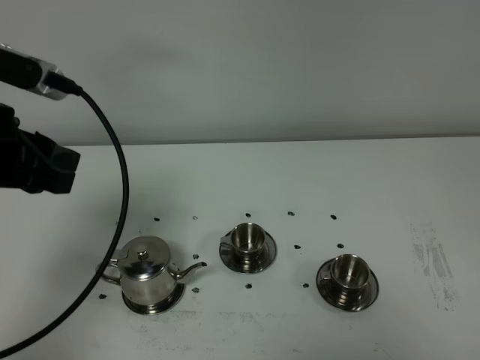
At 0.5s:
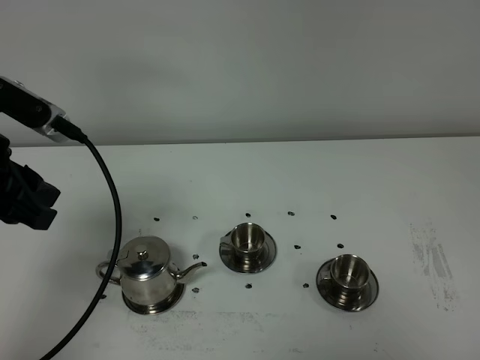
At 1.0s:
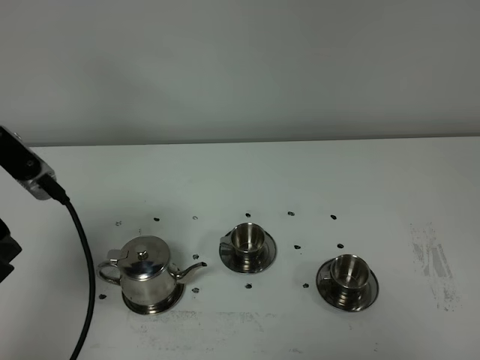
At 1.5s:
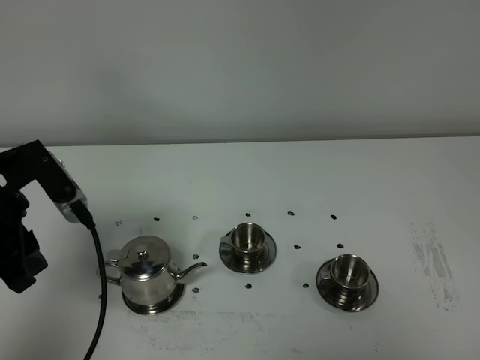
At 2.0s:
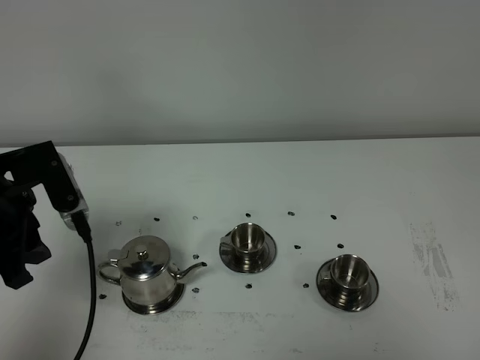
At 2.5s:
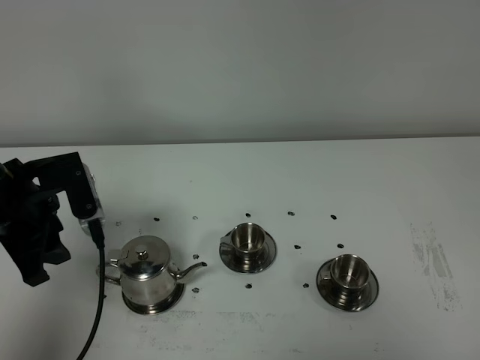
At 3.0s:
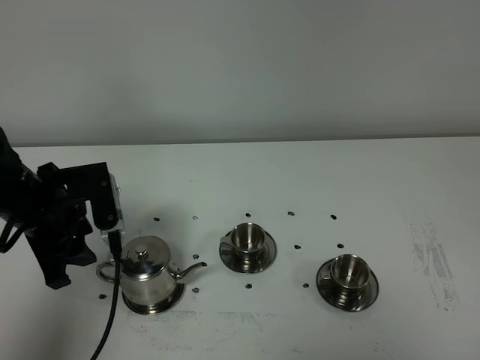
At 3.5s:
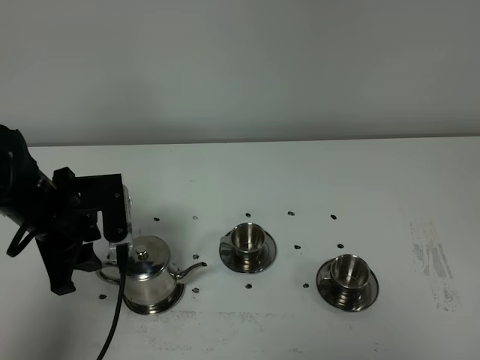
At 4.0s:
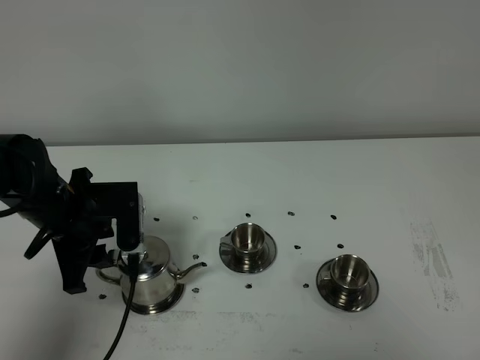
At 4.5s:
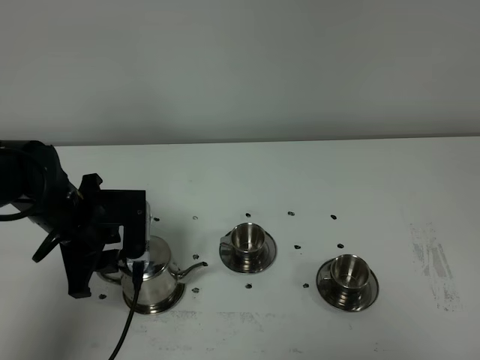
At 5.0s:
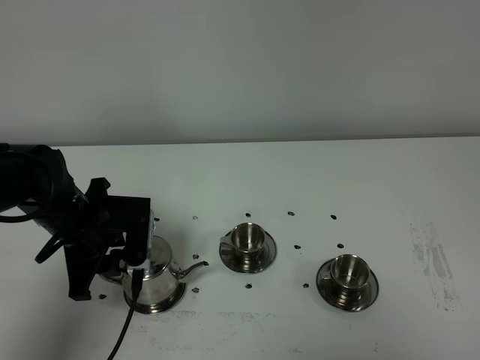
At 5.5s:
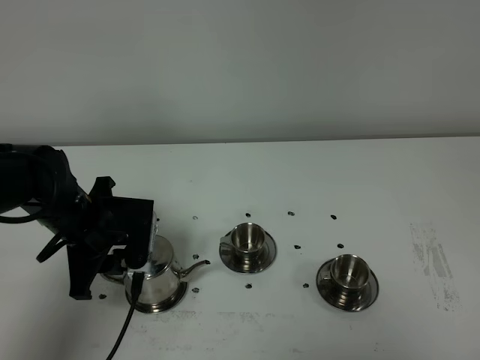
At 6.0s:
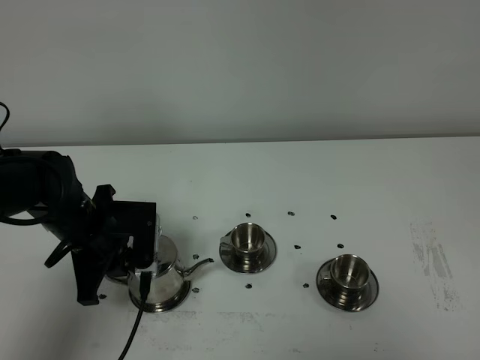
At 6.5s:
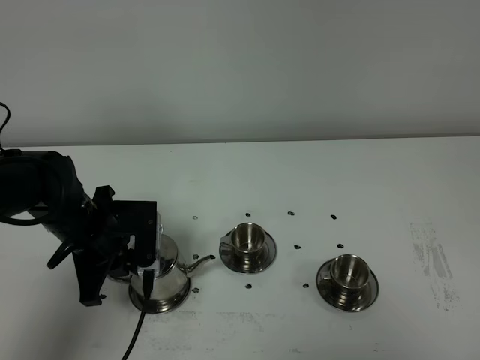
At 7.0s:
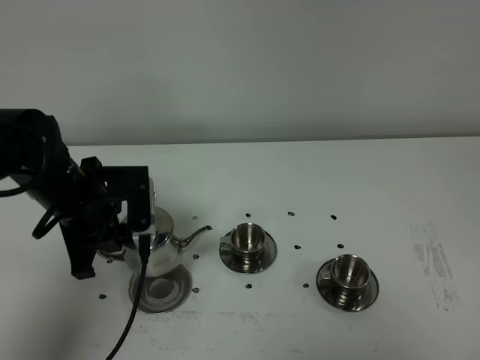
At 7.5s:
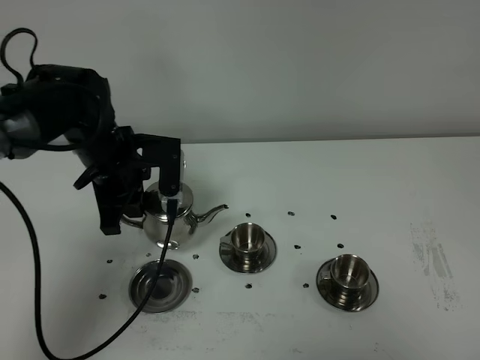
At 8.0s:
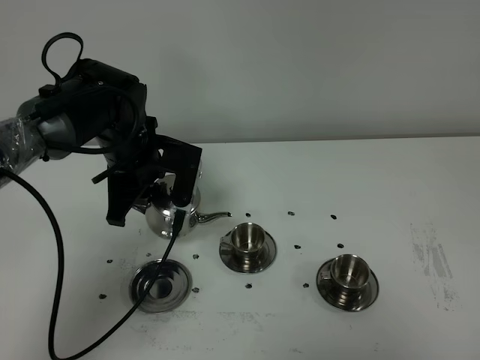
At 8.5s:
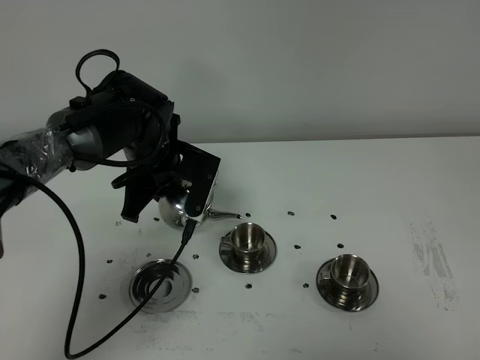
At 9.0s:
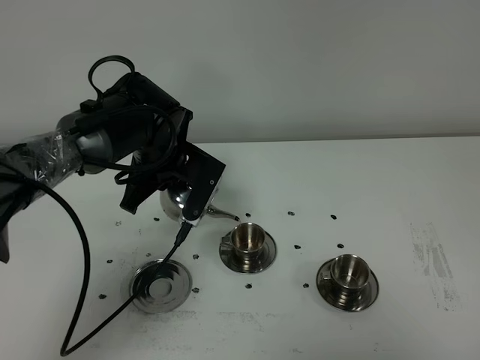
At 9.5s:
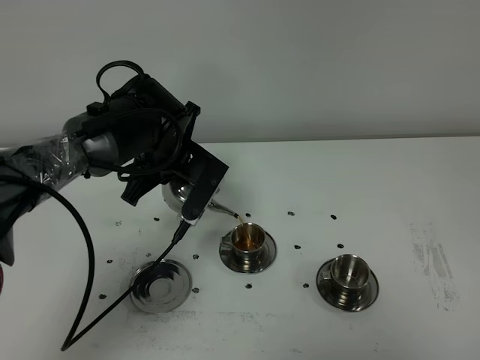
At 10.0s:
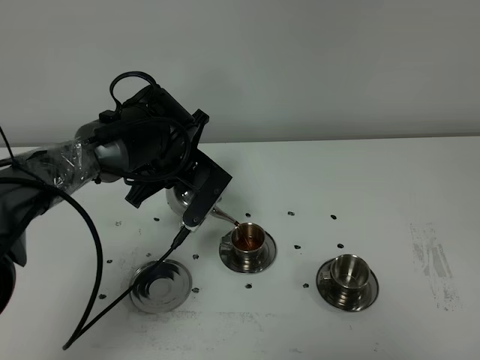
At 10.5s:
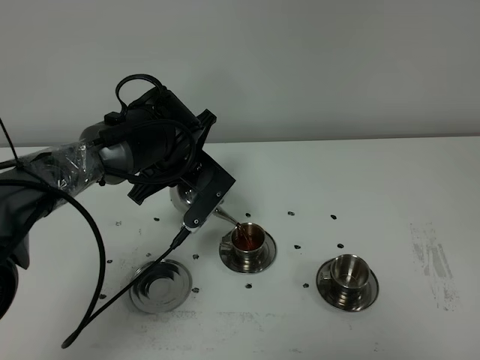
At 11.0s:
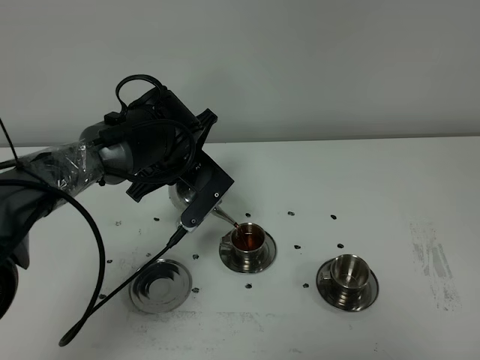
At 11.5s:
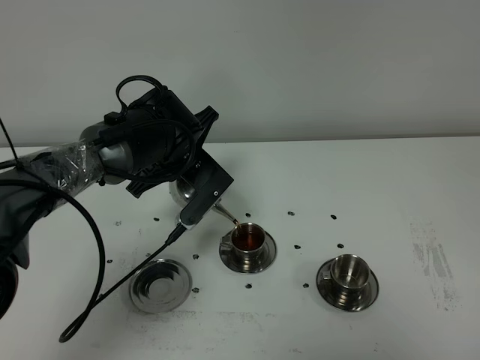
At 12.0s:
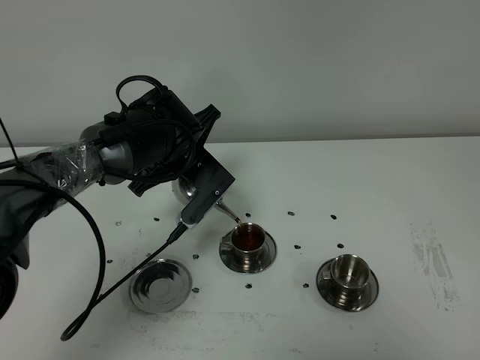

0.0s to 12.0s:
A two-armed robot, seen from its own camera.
Task of the whole recording: grasp the stainless steel teapot and pour the tea into the two stainless steel teacups one by one, put the stainless steel teapot back in its original place.
Step, 0.0s to 7.0s: Pick up the teapot with the left gripper.
0.0s to 2.0s: The left gripper moves downward, some 5 cm.
2.0s to 4.0s: The left gripper moves downward, roughly 10 cm.
4.0s to 6.0s: The left gripper closes up.
6.0s to 8.0s: The left gripper shifts roughly 10 cm forward, to the right and upward.
8.0s to 10.0s: The left gripper changes place by roughly 5 cm.
10.0s to 12.0s: The grippers make only small movements.

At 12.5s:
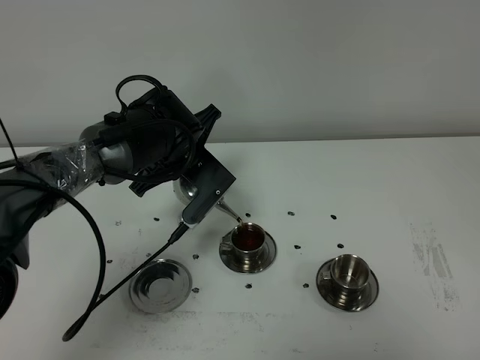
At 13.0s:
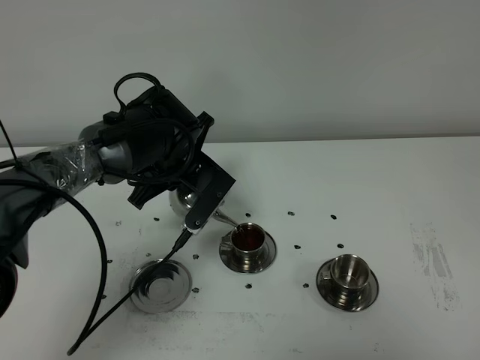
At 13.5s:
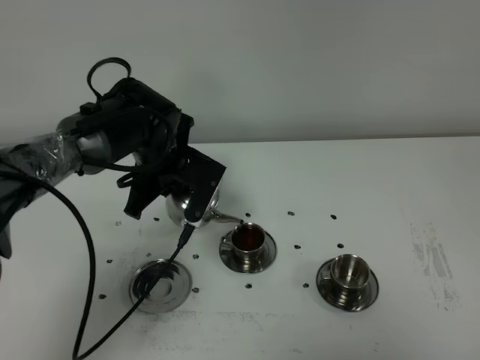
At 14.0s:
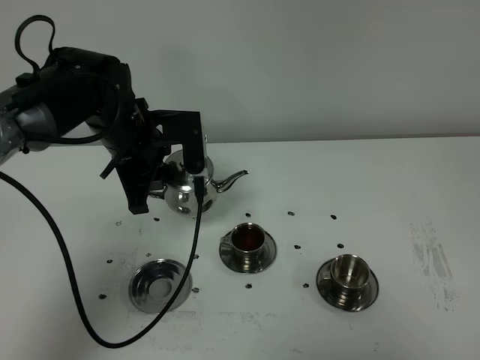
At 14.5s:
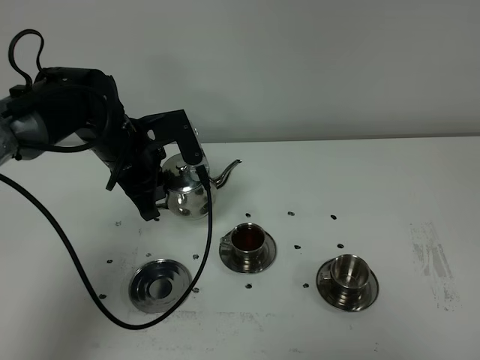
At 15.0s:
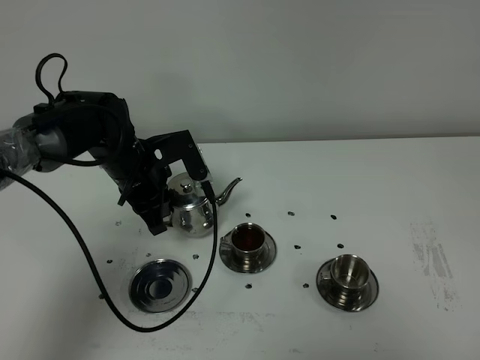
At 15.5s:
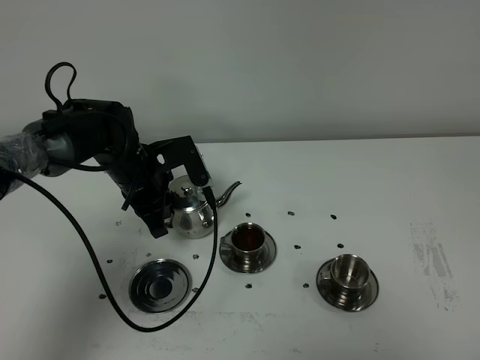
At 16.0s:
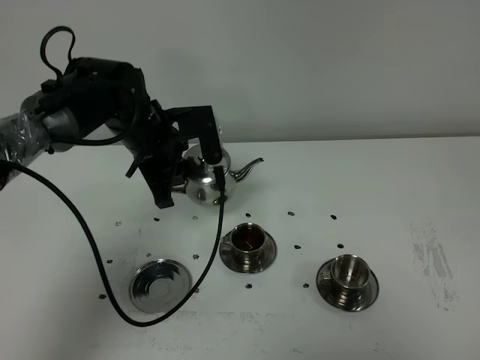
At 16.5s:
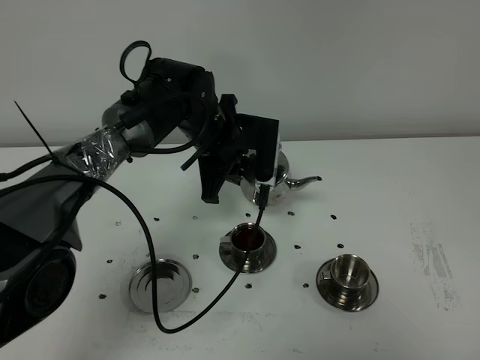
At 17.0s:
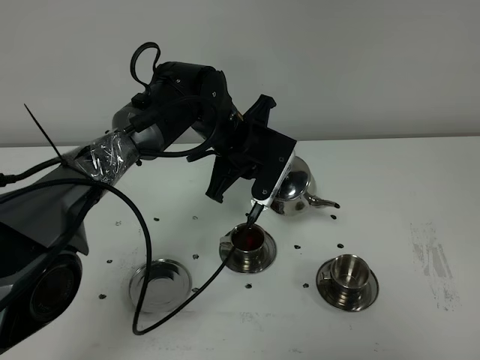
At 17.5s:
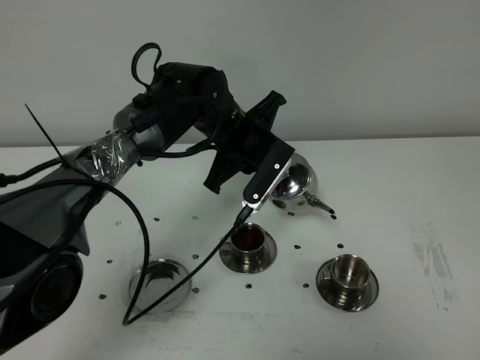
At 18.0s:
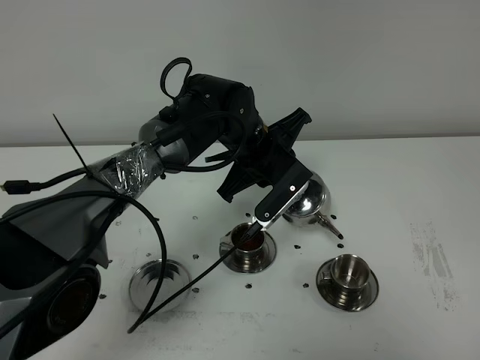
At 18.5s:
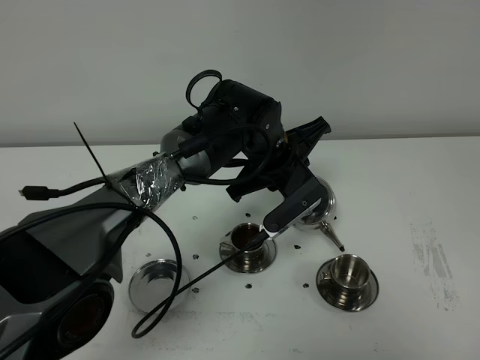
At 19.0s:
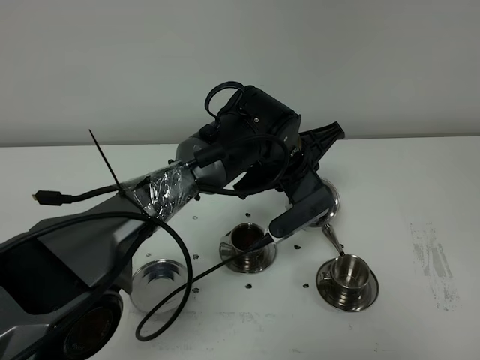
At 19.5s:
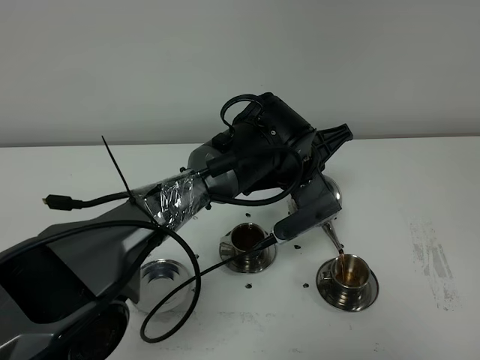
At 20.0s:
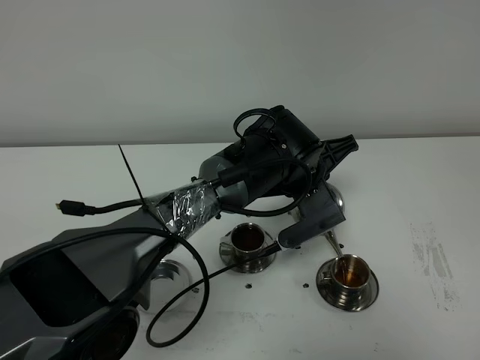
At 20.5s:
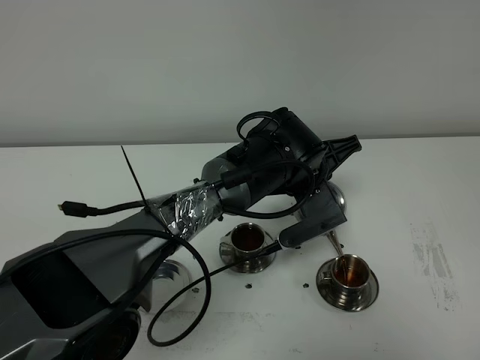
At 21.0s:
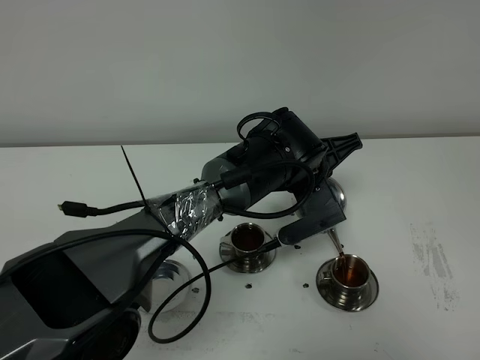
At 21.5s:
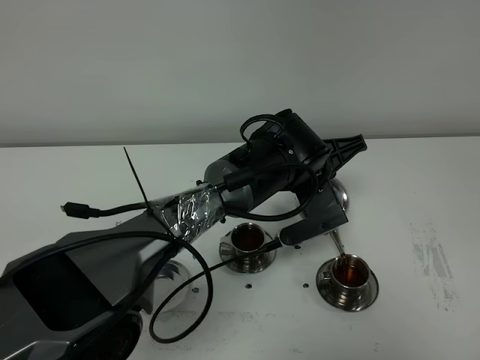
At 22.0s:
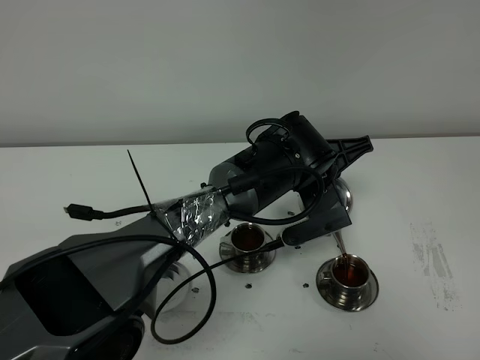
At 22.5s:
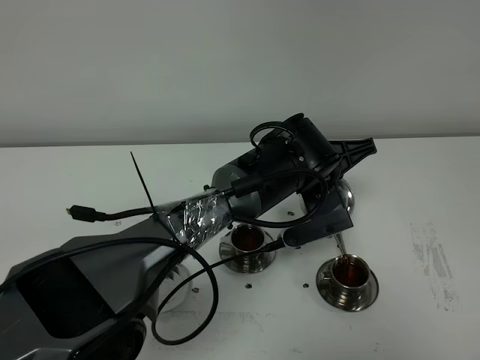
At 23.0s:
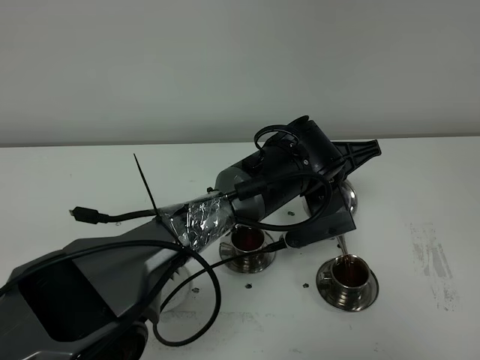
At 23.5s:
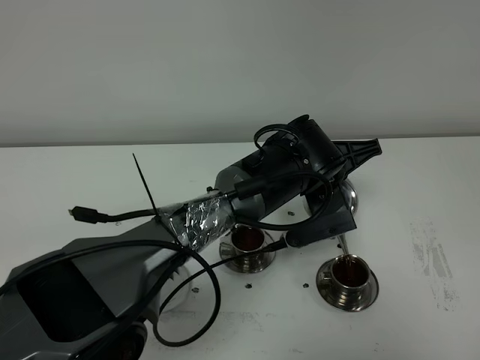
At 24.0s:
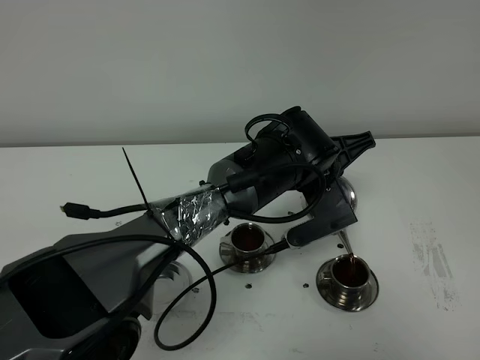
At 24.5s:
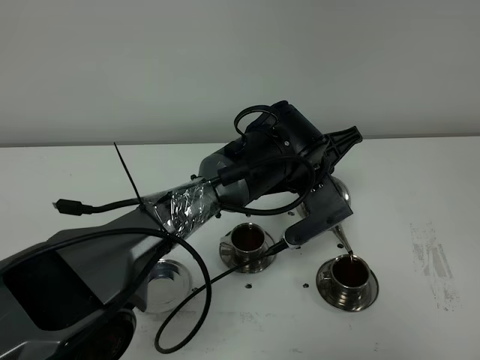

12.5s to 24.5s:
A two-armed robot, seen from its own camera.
Task of the whole recording: grasp the stainless steel teapot and pour the tea into the two stainless steel teacups one by one, put the stainless steel teapot back in its original place.
12.5s to 14.5s: The left gripper is displaced to the left by approximately 5 cm.
14.5s to 16.5s: The left gripper moves to the right, roughly 10 cm.
16.5s to 18.5s: The left gripper heads to the right, covering roughly 10 cm.
20.5s to 24.5s: The grippers move only a little.

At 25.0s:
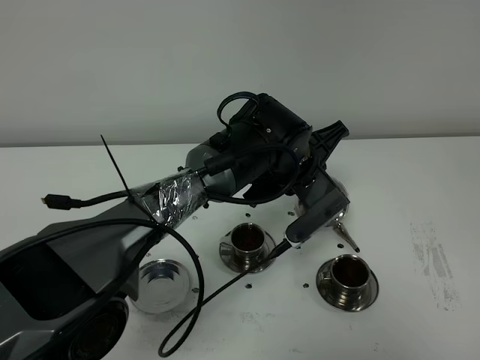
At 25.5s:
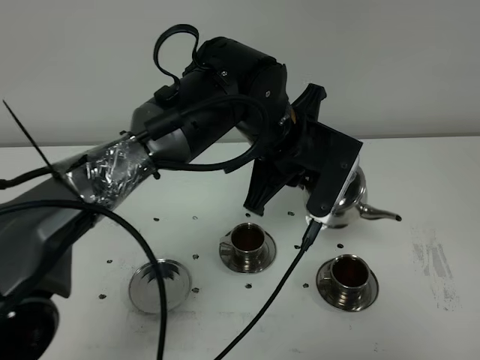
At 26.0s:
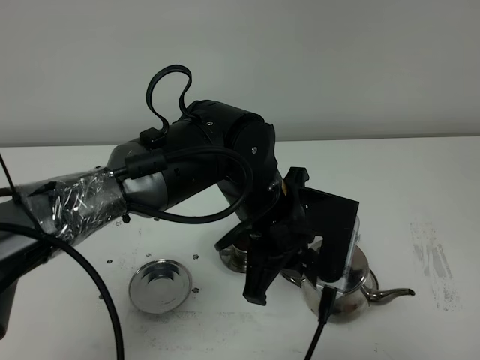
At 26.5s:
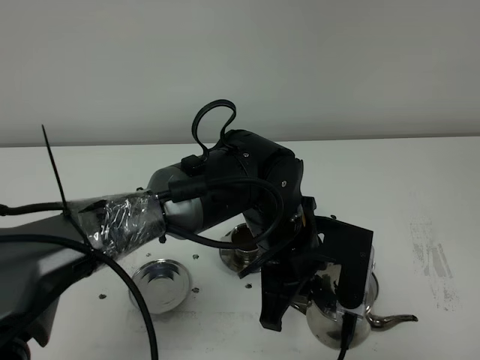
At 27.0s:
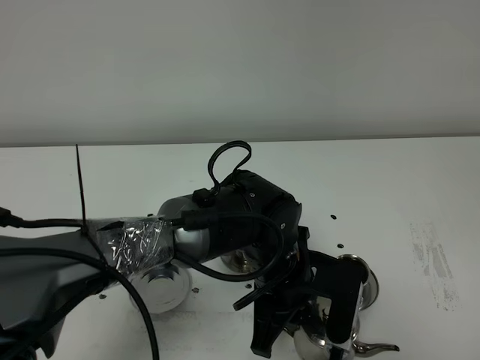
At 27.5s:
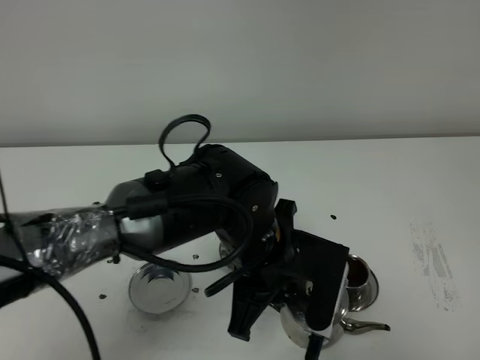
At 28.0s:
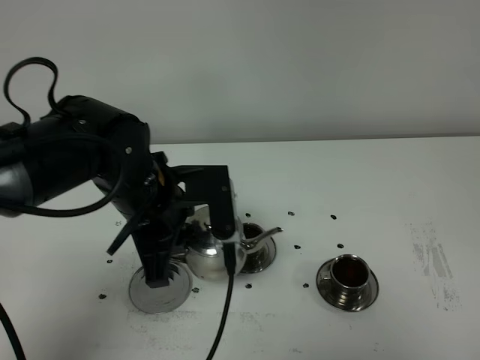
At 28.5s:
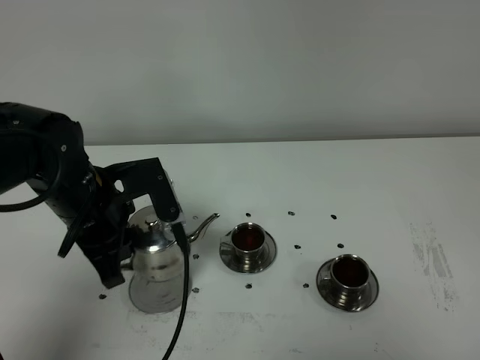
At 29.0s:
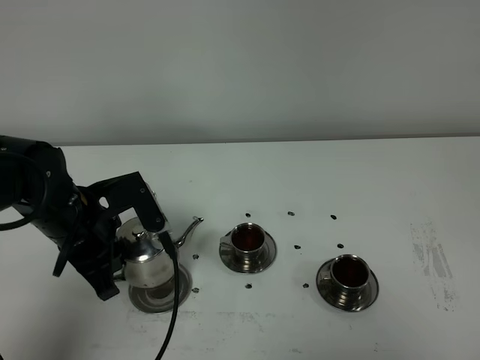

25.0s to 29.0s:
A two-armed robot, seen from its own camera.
Task of the whole recording: grasp the stainless steel teapot and pour the tea into the two stainless steel teacups one by one, put the stainless steel teapot back in its original place.
25.0s to 27.0s: The left gripper moves backward, some 15 cm.
27.0s to 29.0s: The left gripper travels to the left by about 25 cm.
